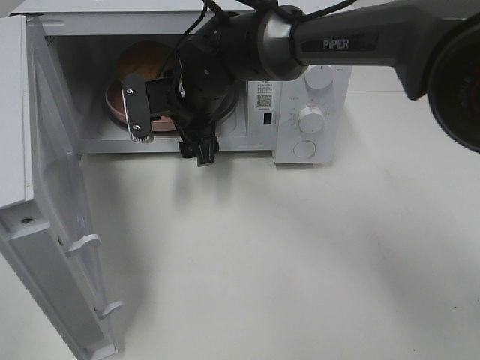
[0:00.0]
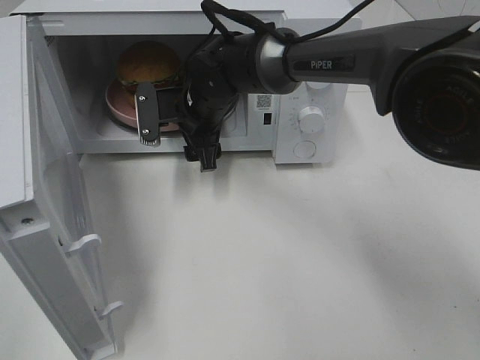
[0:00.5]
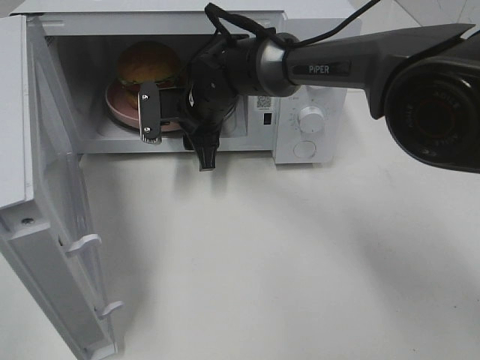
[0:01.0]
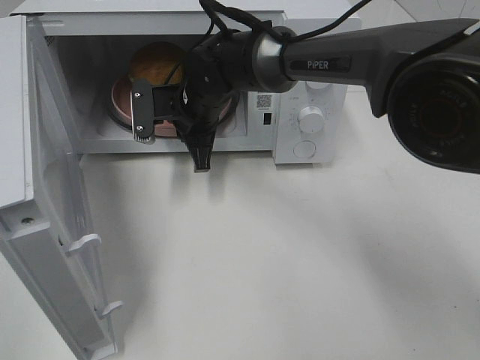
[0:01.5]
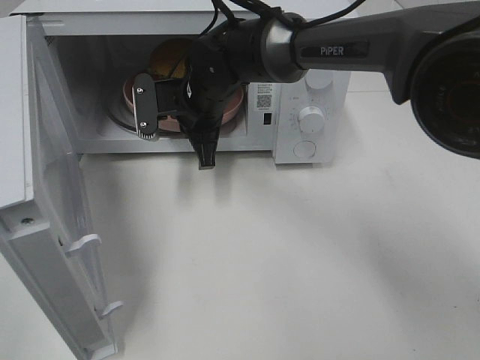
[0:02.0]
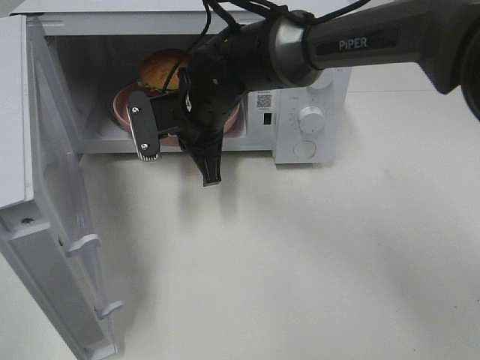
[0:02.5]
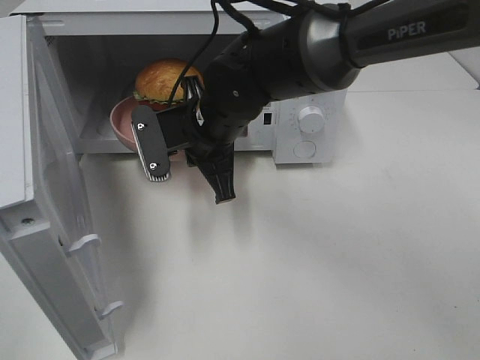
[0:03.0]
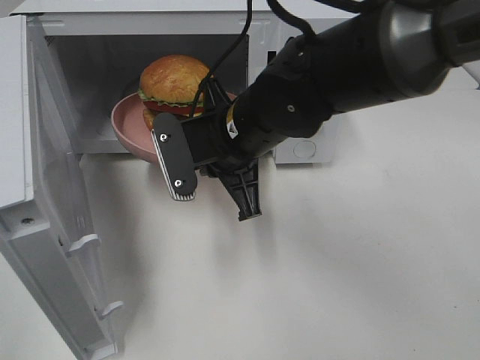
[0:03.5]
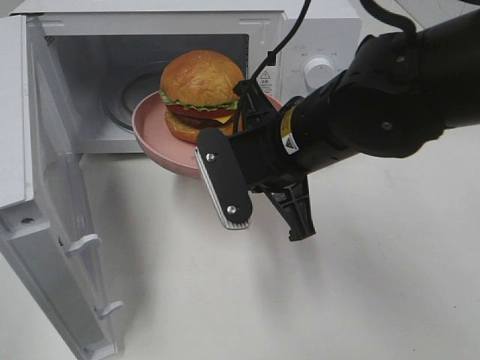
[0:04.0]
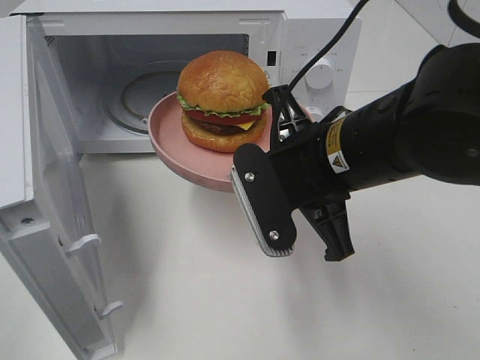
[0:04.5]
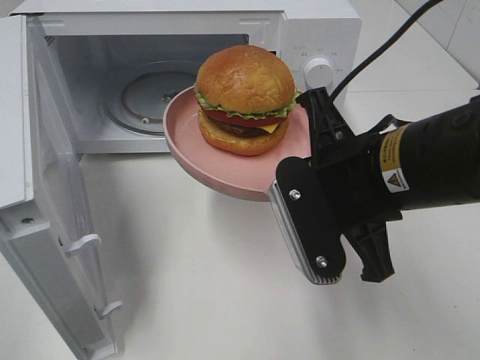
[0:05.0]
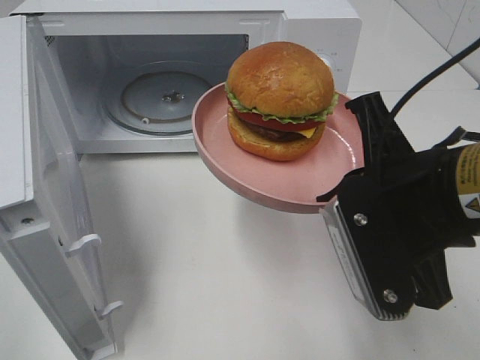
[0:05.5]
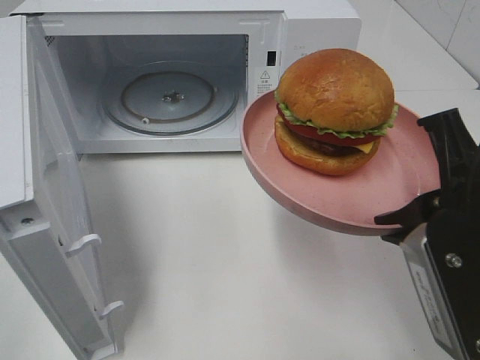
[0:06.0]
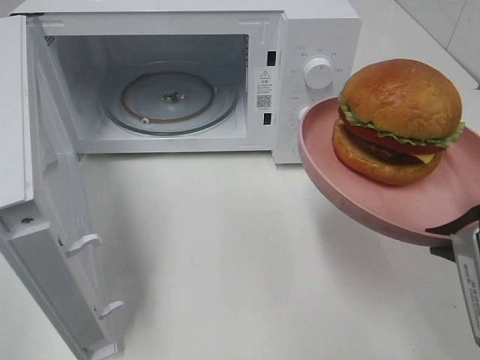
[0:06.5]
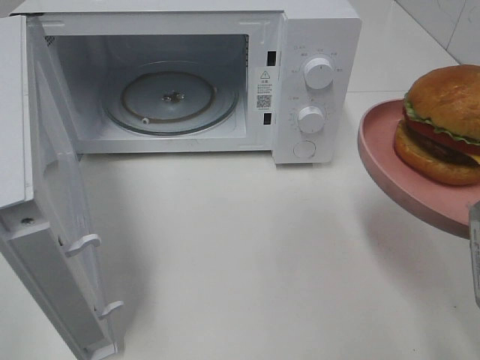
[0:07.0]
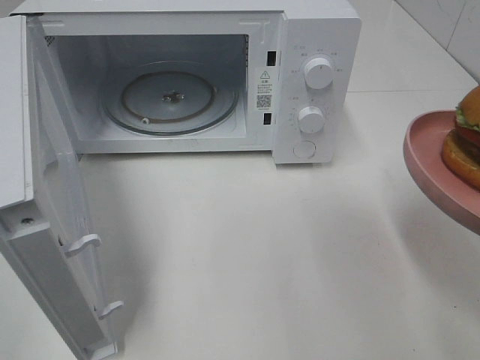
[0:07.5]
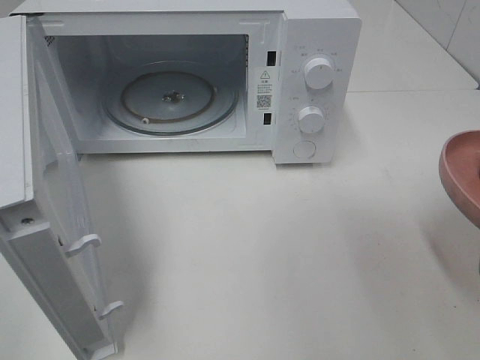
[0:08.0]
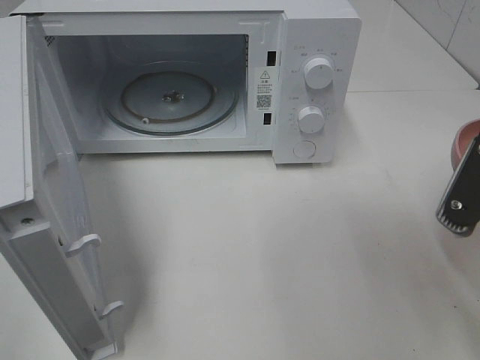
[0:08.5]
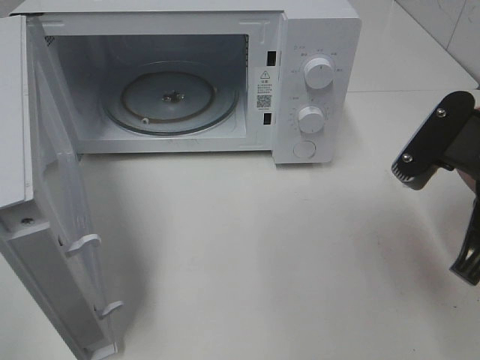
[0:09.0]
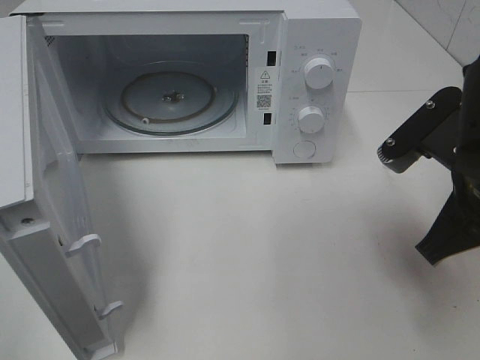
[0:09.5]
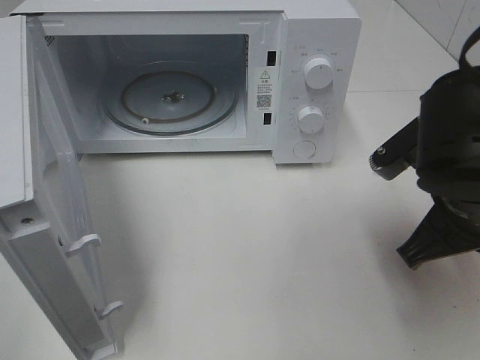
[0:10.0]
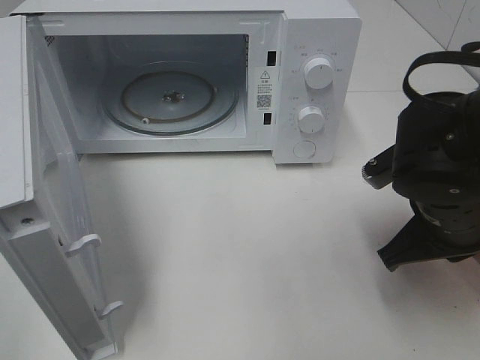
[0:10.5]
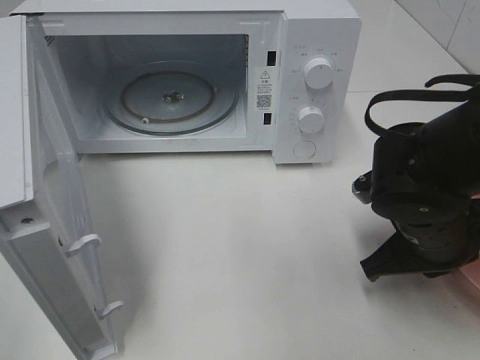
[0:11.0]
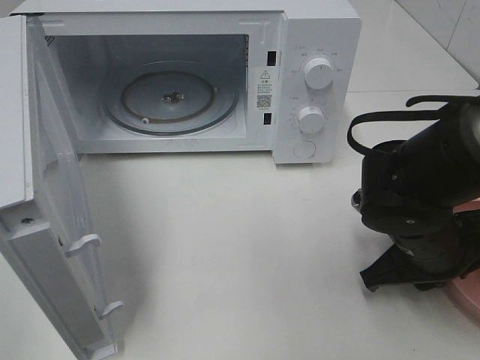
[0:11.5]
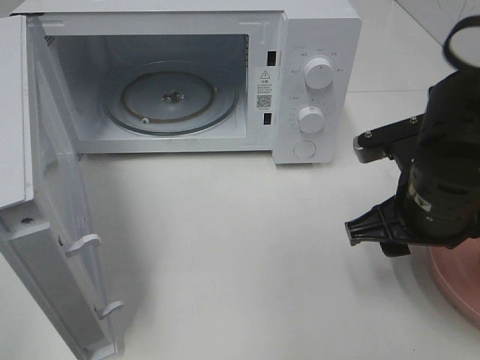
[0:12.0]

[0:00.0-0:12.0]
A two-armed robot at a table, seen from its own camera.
Task of the whole recording: Heat the burger.
Step, 0:01.5 to 0:11.5: Right hand: place the plate on the table.
0:00.0 to 0:02.0: The right gripper closes.
0:02.0 to 0:04.0: The right gripper shifts approximately 20 cm backward and to the right.
0:04.0 to 0:06.0: The right gripper heads to the right and backward, covering some 20 cm.
0:06.0 to 0:08.0: The right gripper travels to the right by approximately 5 cm.
0:08.0 to 0:10.0: The right gripper is displaced forward and to the left by some 10 cm.
0:10.0 to 0:12.0: The right gripper travels downward and back again, roughly 10 cm each way, and opens its fingers.

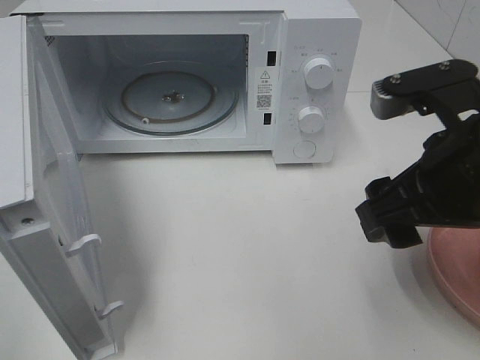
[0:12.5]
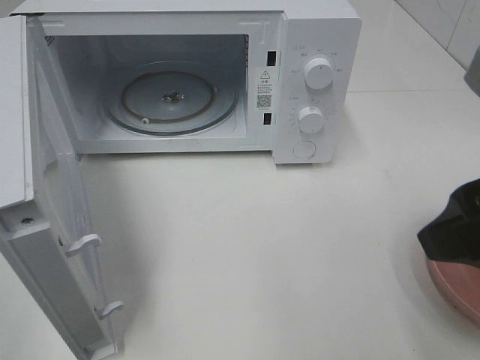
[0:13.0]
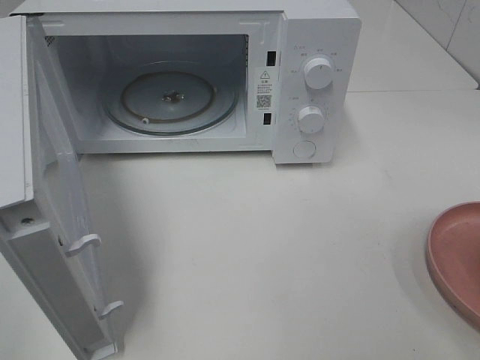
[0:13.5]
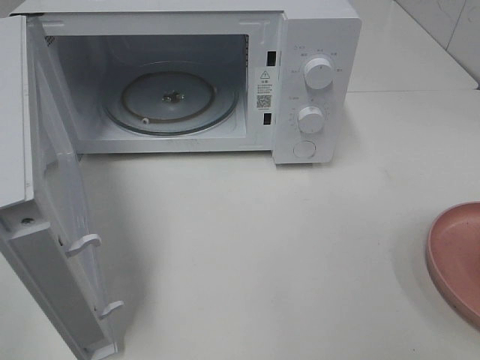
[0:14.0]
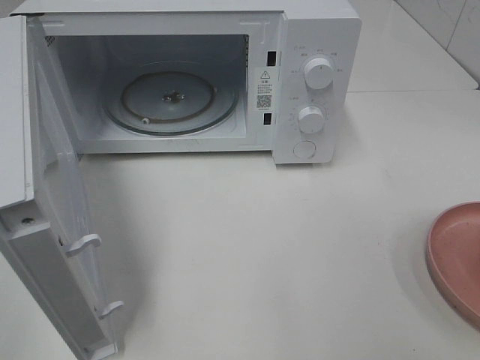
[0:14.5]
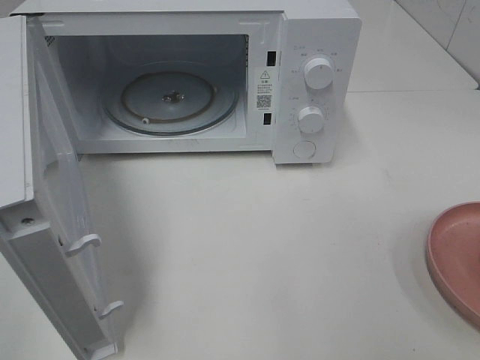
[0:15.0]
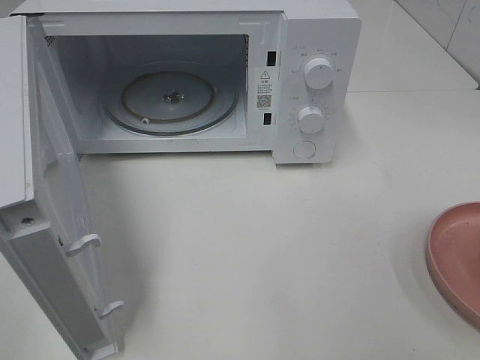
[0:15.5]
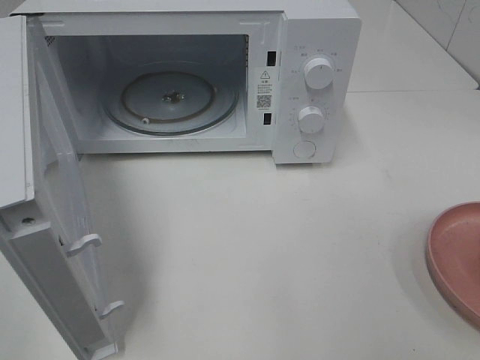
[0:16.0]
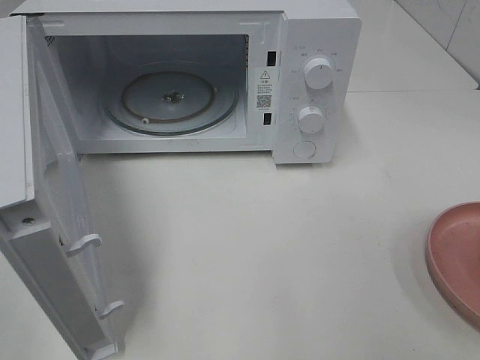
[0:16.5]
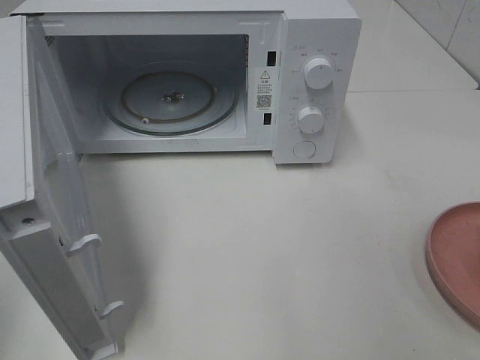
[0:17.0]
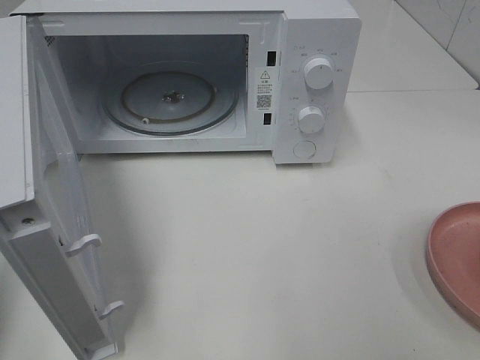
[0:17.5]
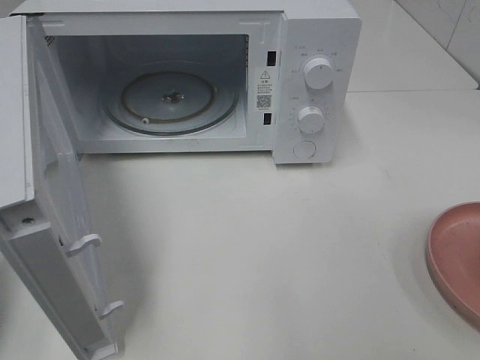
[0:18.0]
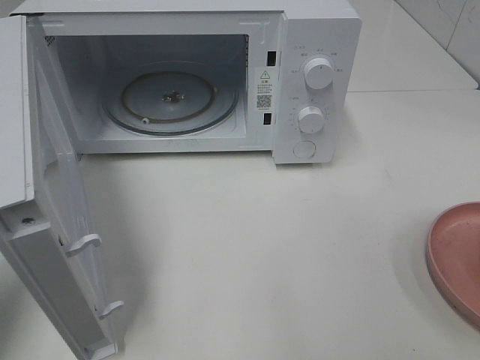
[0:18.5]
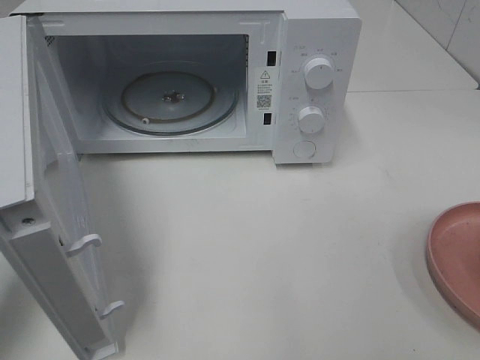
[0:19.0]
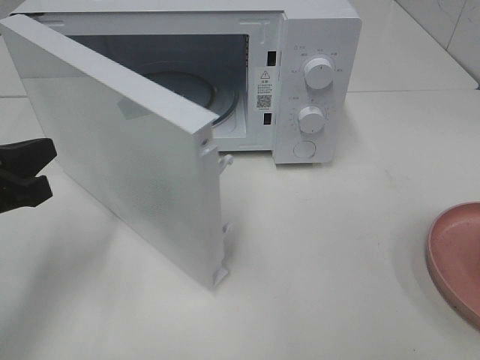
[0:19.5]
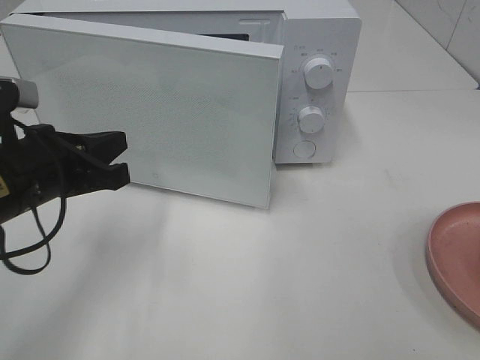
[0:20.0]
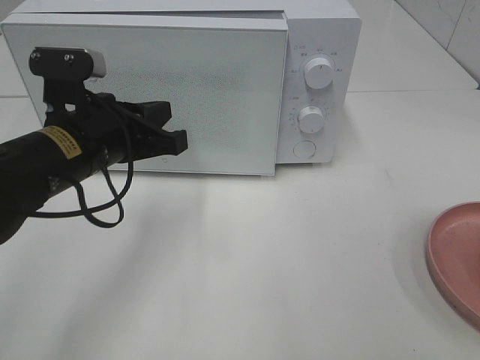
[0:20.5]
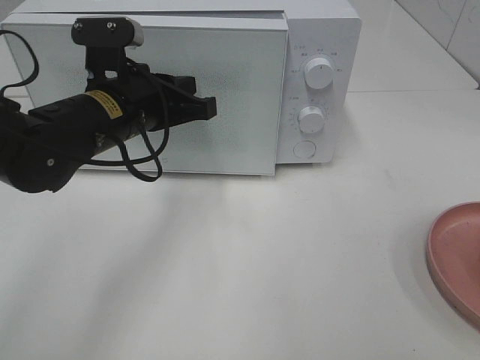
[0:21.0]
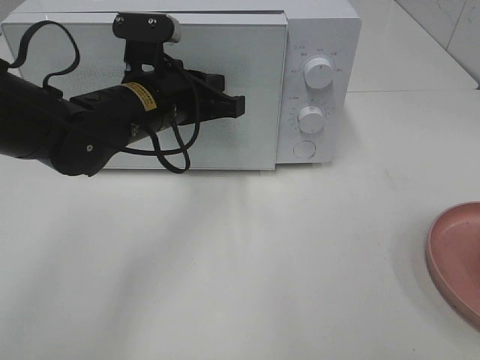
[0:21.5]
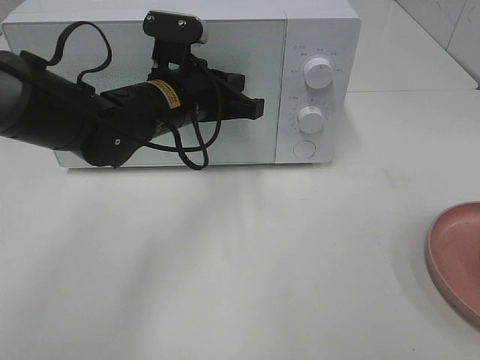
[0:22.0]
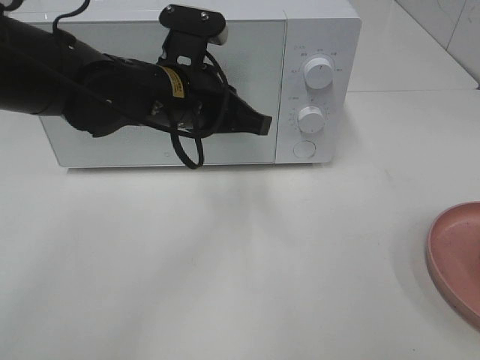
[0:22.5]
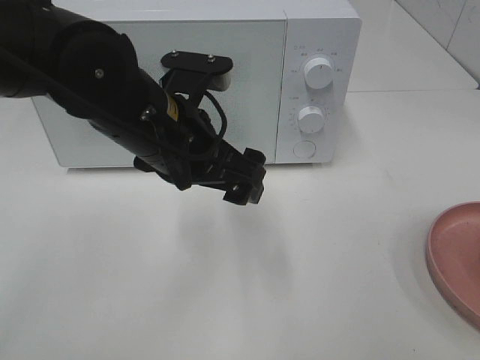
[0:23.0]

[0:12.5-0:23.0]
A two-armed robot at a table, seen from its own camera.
Task of the whole recording: Heat the burger.
Step, 0:12.5 to 0:22.0: Left hand: close the microwave door.
0:12.5 to 0:14.5: The right gripper goes roughly 20 cm backward and to the right.
0:14.5 to 0:16.5: Both grippers stay about where they are.
0:16.5 to 0:19.0: The left gripper goes some 20 cm forward and downward, and closes.
0:19.0 to 0:21.0: The left gripper is displaced to the right and forward by about 20 cm.
0:21.0 to 0:23.0: The left gripper moves backward and to the right, some 10 cm, and opens.

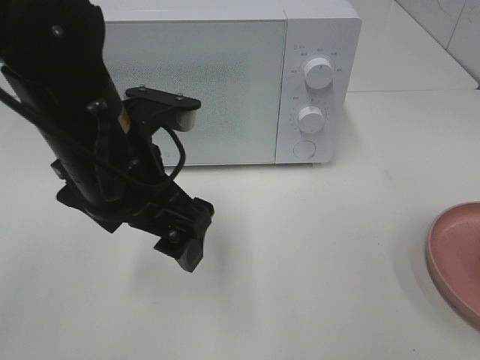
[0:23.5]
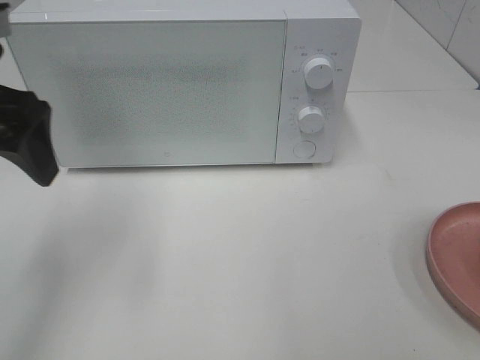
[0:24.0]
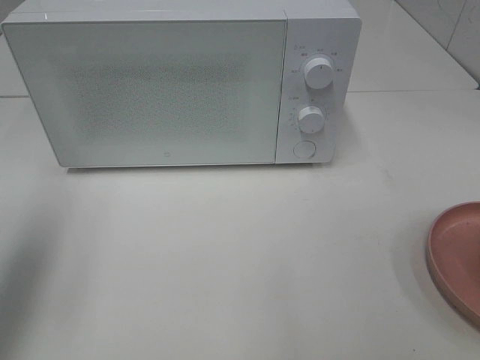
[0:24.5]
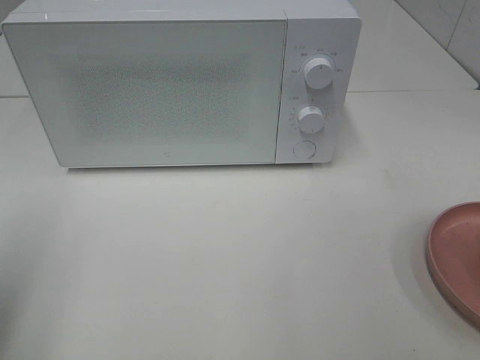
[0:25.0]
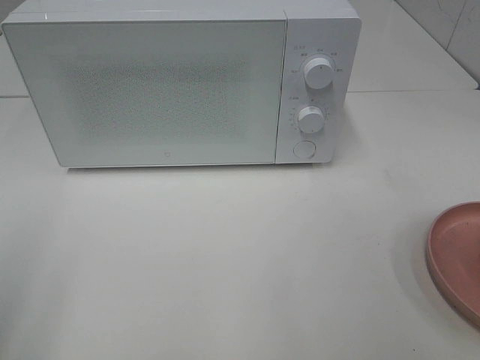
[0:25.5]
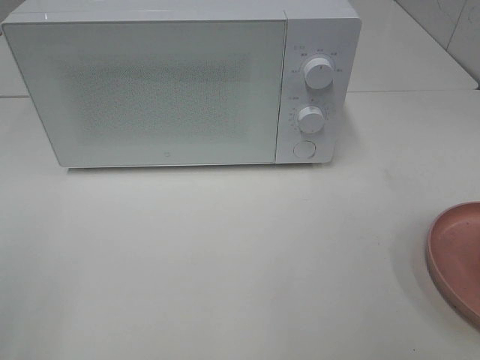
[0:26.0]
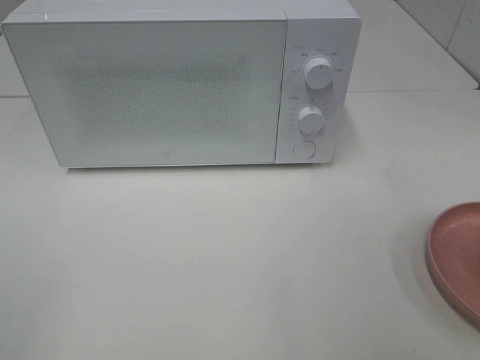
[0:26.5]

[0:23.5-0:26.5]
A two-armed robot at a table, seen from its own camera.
Task of the whole recording: Heat the burger.
0:23.5 to 0:25.0: The left gripper travels to the left and backward by roughly 25 cm.
